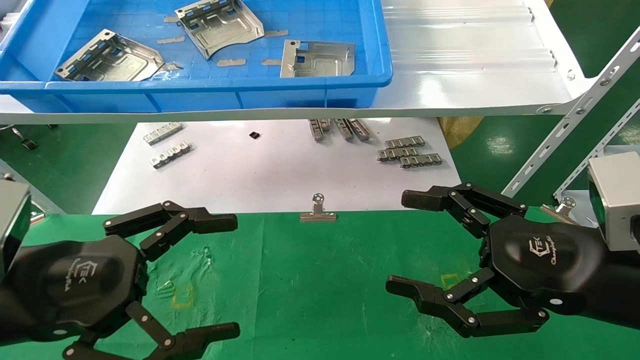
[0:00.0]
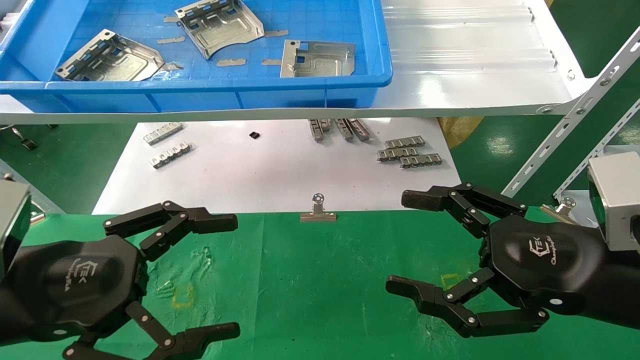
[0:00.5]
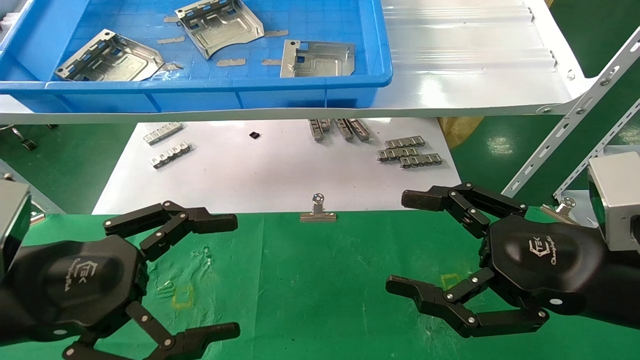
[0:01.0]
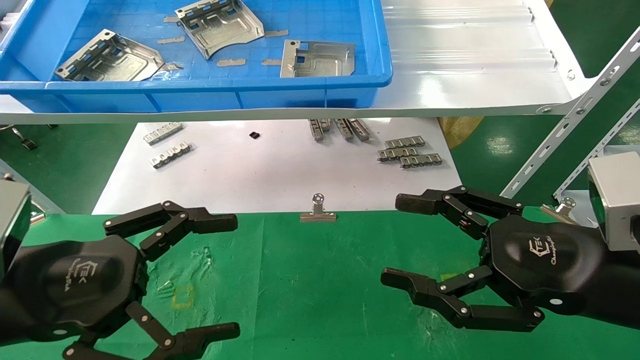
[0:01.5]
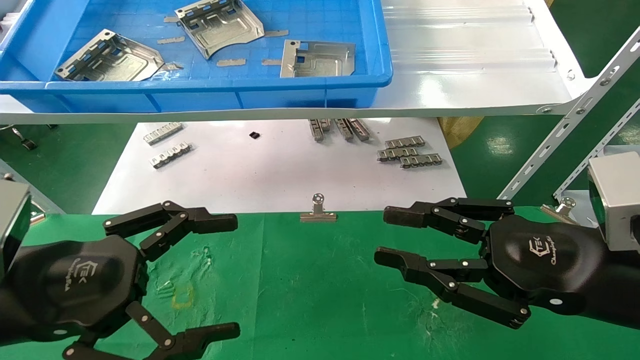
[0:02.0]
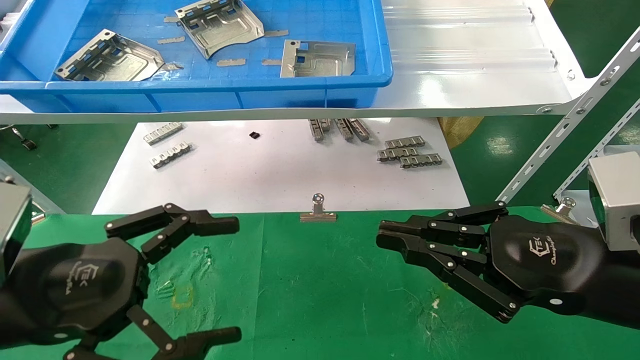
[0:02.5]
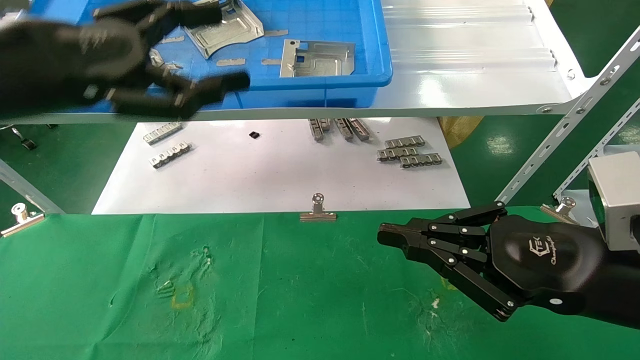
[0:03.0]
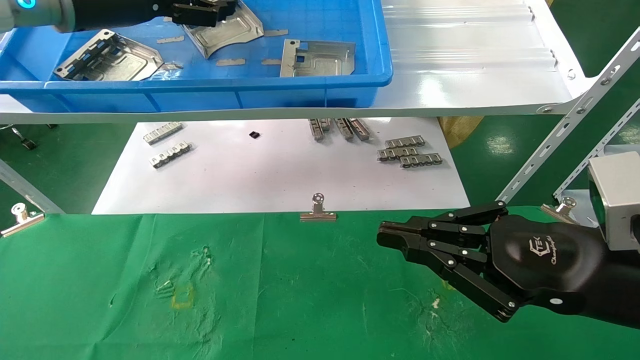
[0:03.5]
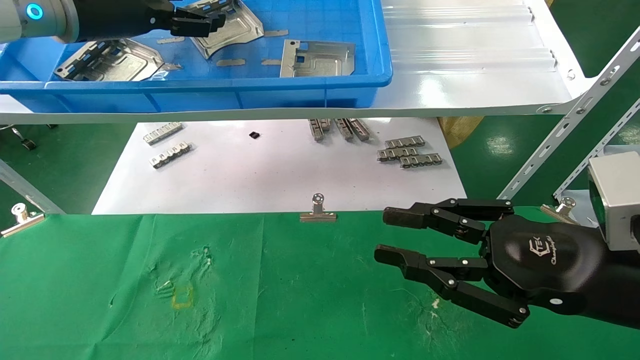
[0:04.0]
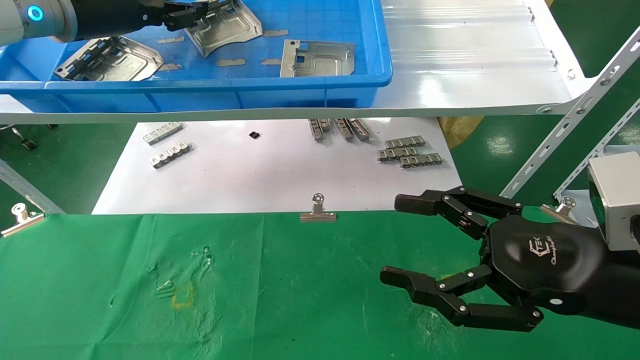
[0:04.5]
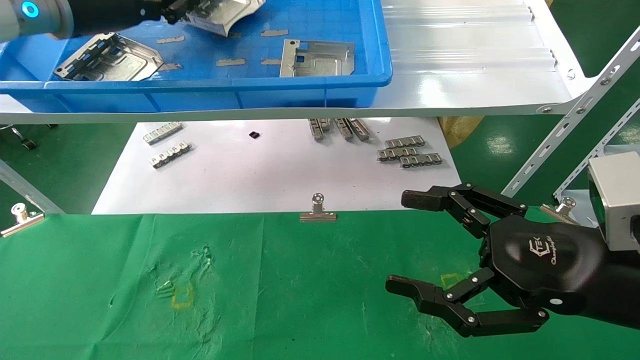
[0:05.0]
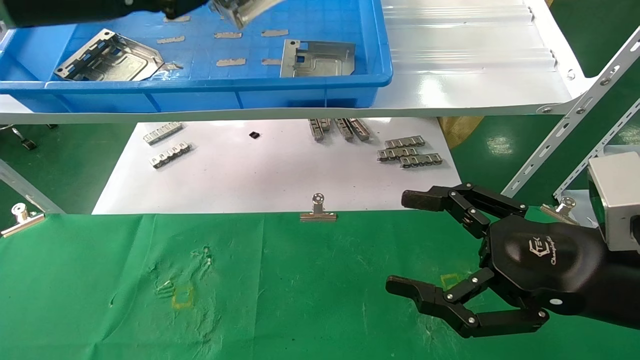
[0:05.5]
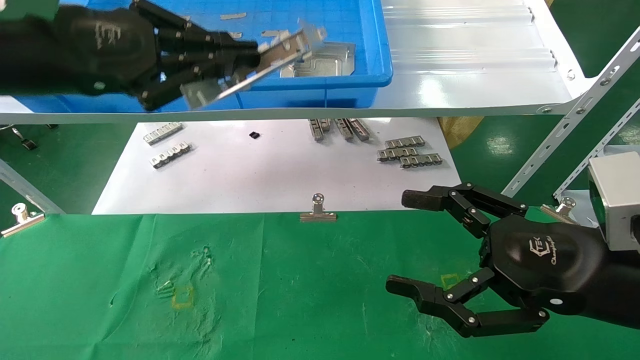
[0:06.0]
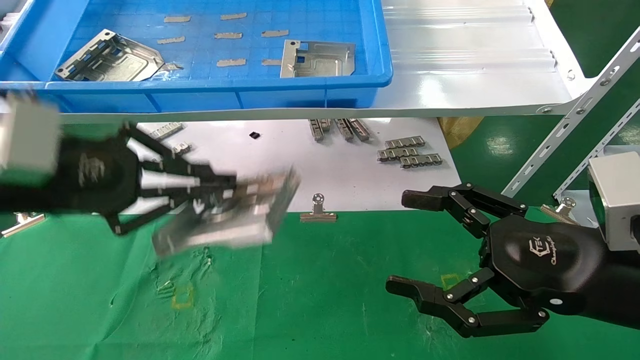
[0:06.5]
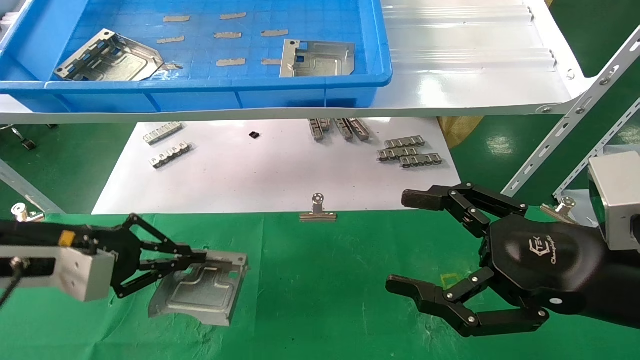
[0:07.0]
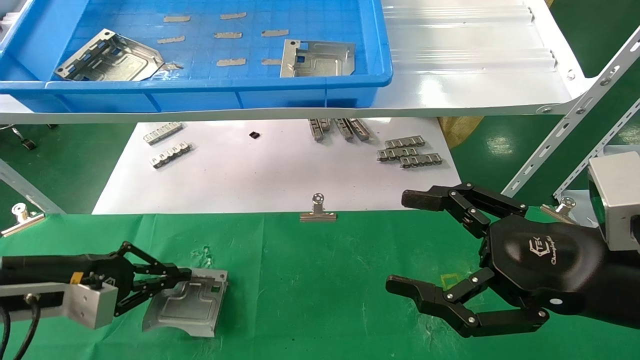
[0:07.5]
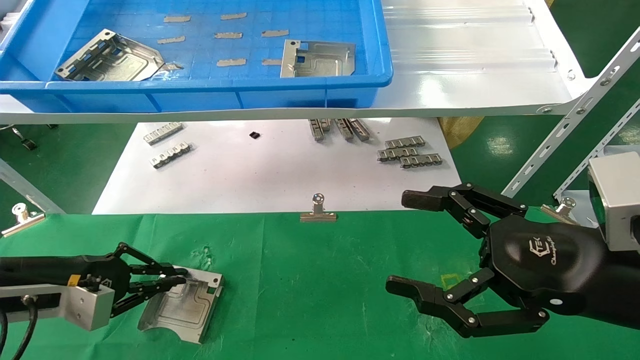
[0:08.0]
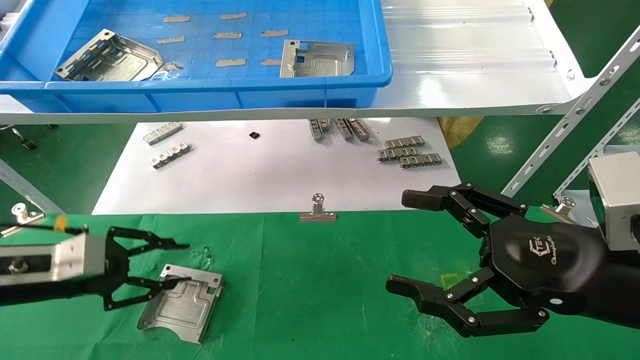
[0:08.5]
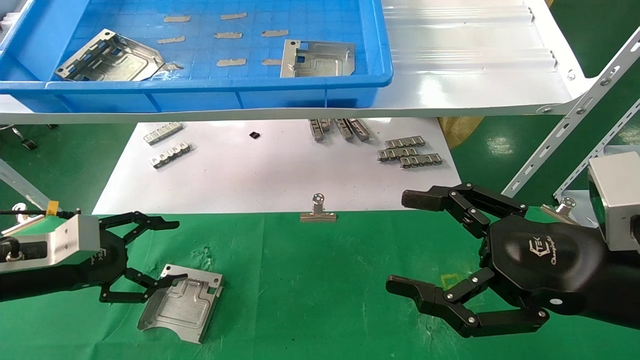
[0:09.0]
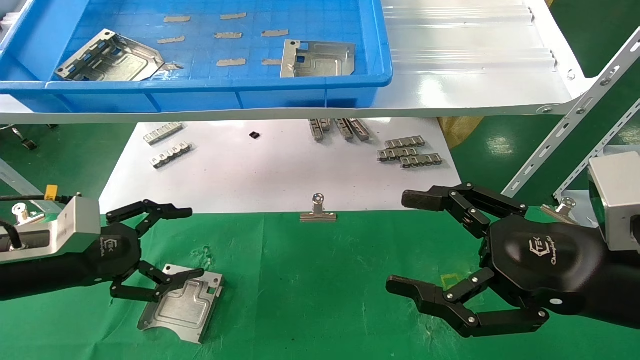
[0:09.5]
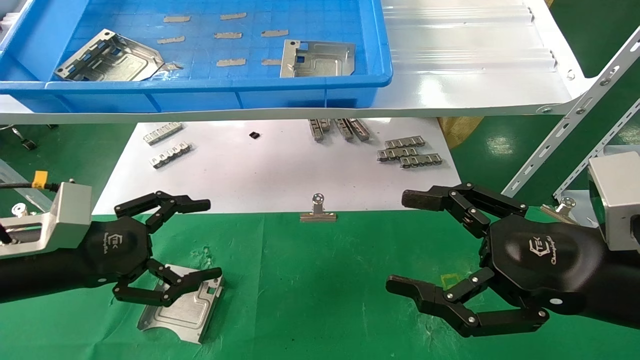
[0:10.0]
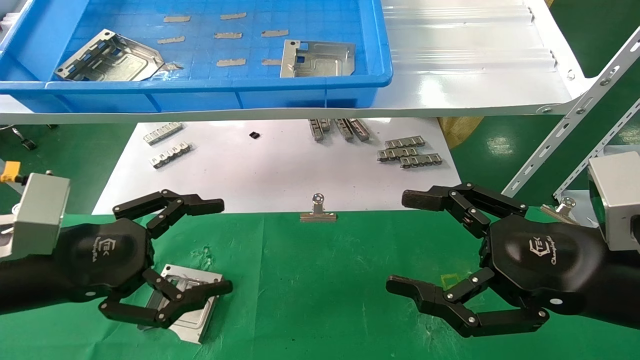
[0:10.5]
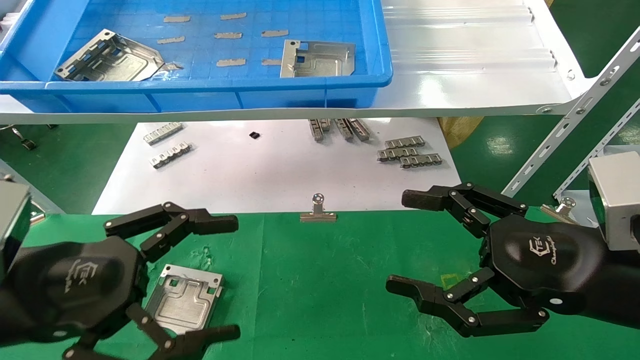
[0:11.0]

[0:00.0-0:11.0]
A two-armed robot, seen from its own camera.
Task of the whole recording: use the mechanical arm to pick up the parts and place them on the table.
Step, 0:03.0 to 0:04.5: Pick up the hard drive bracket from the feeding area.
Step, 0:05.0 to 0:08.0: Place the hard drive bracket into the box.
0:00.0 to 0:02.0: The right gripper closes up.
0:02.0 to 0:03.5: The right gripper closes up. Meanwhile the left gripper goes approximately 30 cm upward and forward.
0:03.5 to 0:05.5: The right gripper opens up; the left gripper goes roughly 5 cm backward, and closes.
0:05.5 to 0:07.5: The left gripper travels downward by roughly 30 cm.
0:07.5 to 0:09.0: The left gripper opens its fingers.
0:09.0 to 0:11.0: The left gripper moves backward, to the right and upward, about 20 cm.
